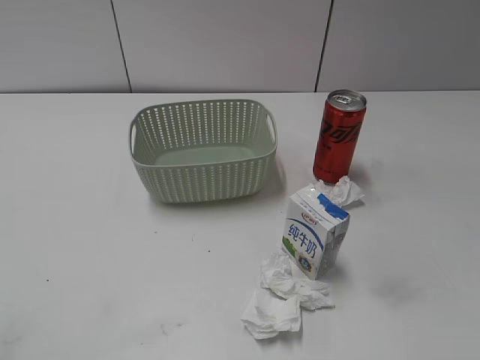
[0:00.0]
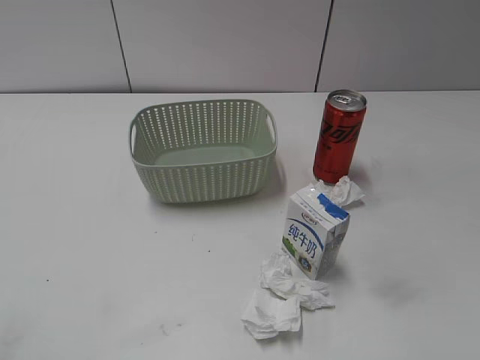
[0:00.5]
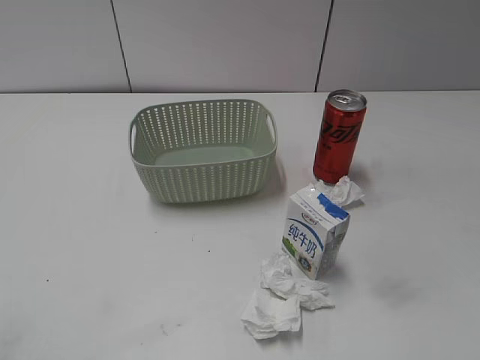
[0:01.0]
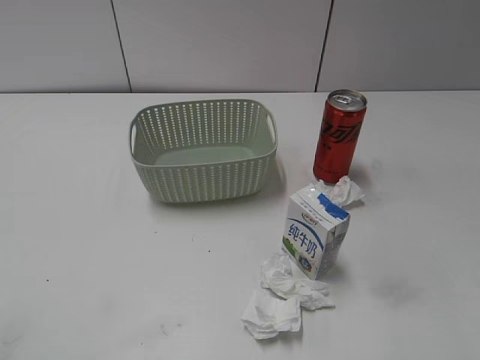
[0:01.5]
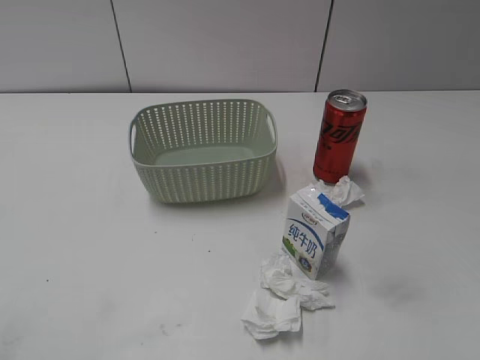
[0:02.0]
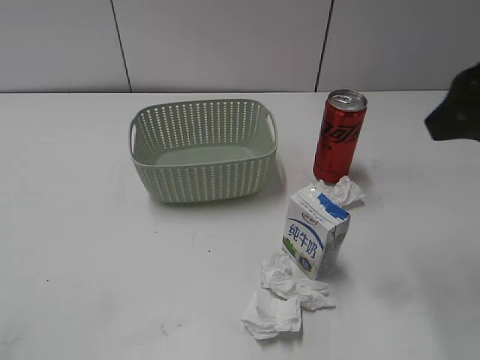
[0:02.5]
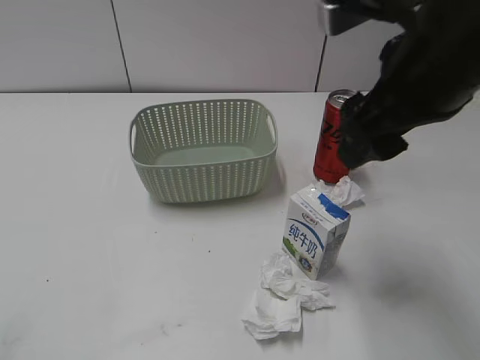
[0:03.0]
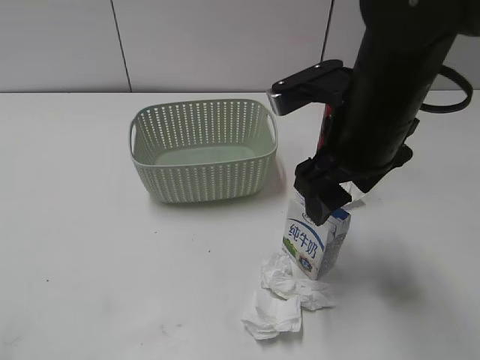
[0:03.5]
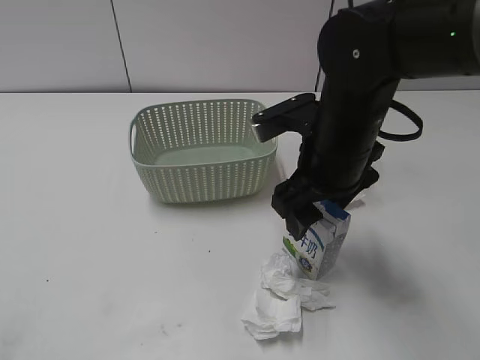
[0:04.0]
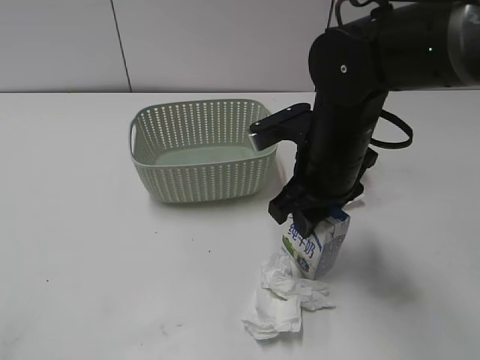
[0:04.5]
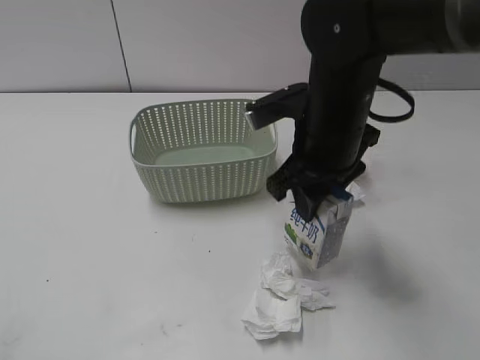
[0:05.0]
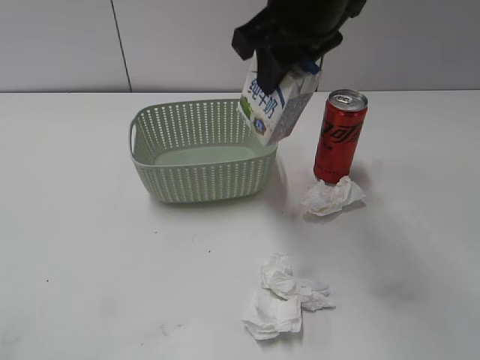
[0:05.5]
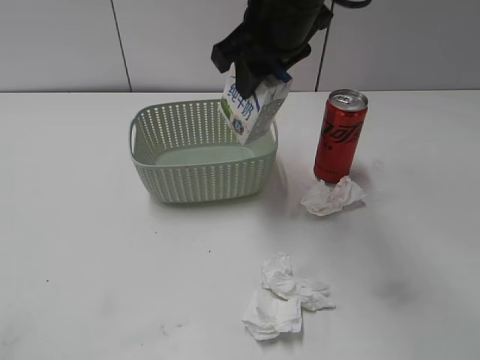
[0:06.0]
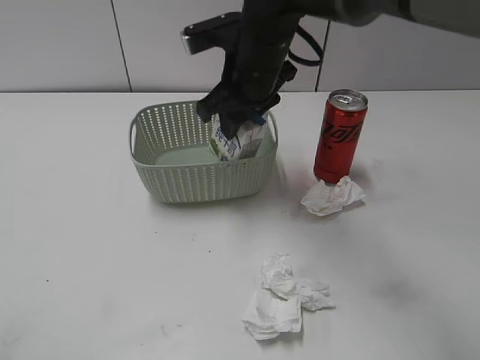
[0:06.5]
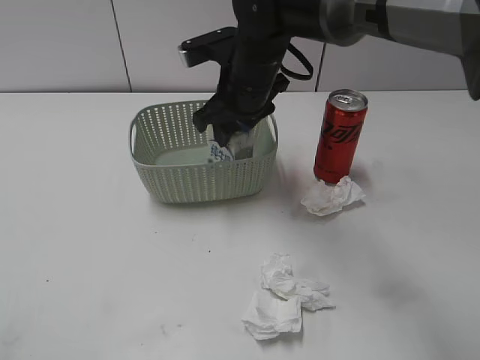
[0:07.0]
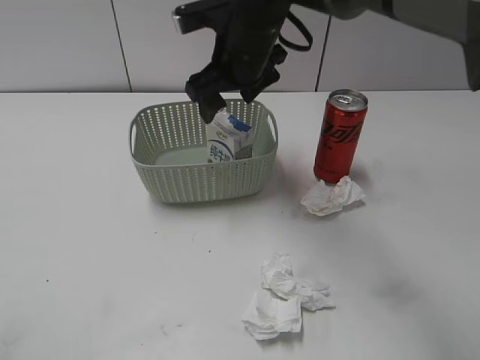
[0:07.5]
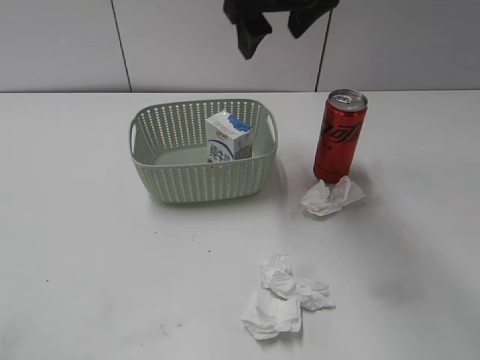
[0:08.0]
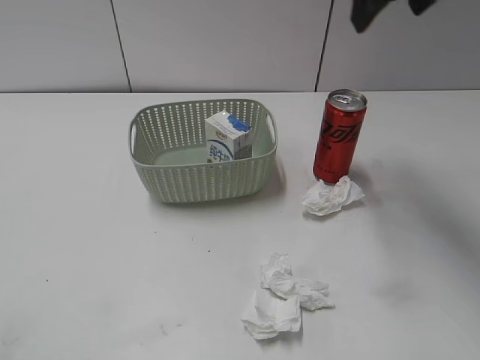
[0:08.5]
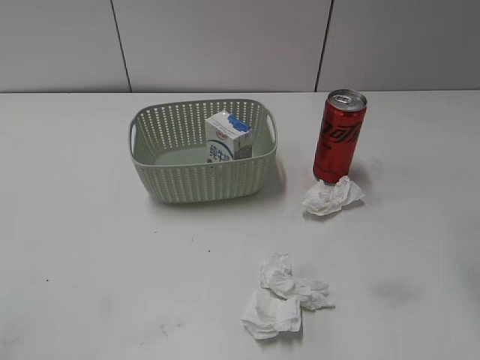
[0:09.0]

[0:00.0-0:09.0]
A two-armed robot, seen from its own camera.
Step, 0:02.5 to 0:04.5: Grasp the milk with right gripper.
Step, 0:05.0 to 0:07.5: Place the milk in the basket with right gripper.
0:02.0 to 0:04.5: The right gripper goes roughly 30 cm to the left, forward and downward, and closes.
0:04.5 to 0:07.0: The right gripper moves forward and to the left, some 15 cm, and goes upward and returns, some 15 cm each way.
0:07.0 to 0:09.0: The right gripper goes approximately 30 cm to the right, upward and backward, and opens up.

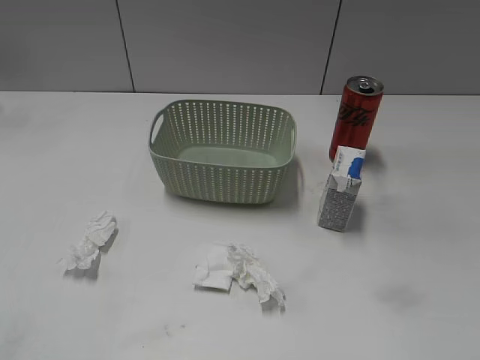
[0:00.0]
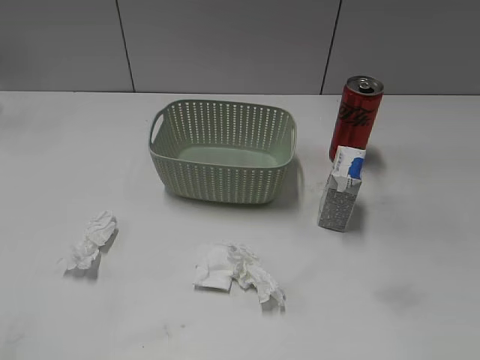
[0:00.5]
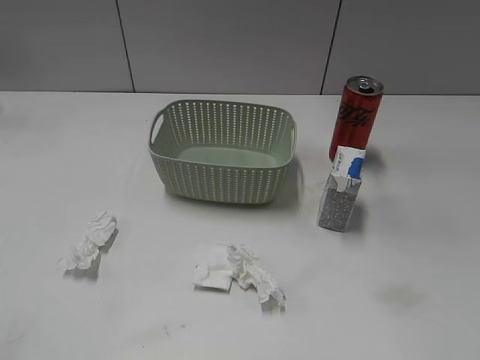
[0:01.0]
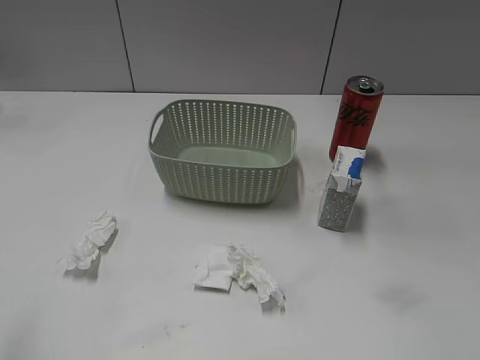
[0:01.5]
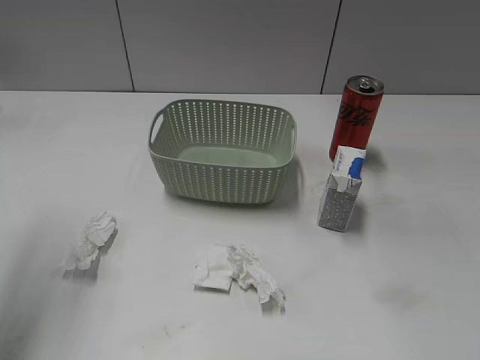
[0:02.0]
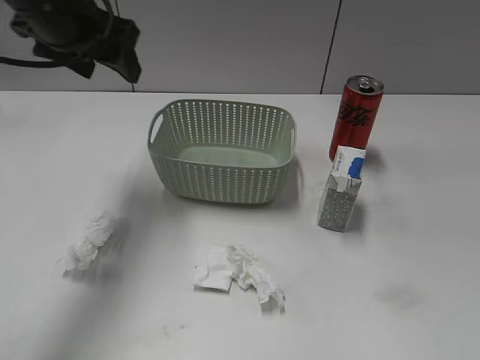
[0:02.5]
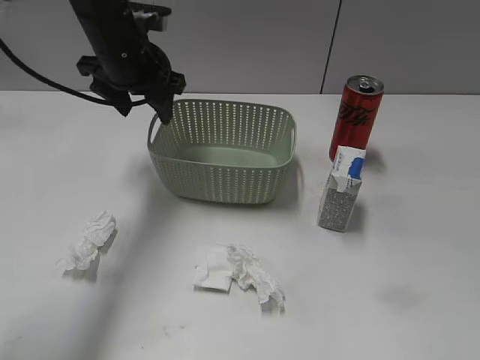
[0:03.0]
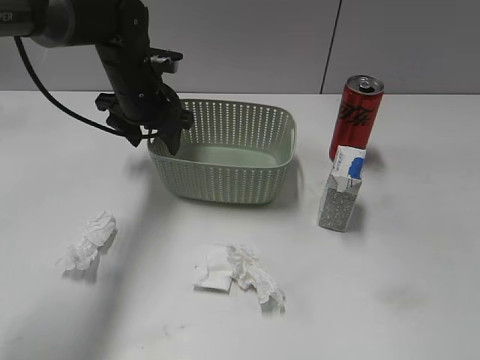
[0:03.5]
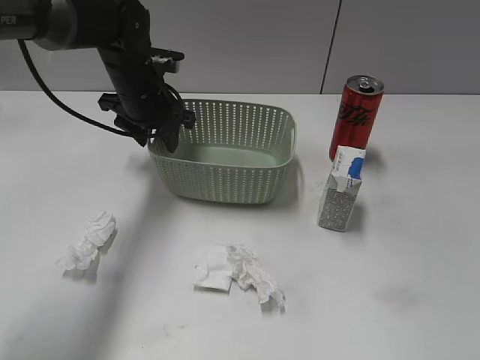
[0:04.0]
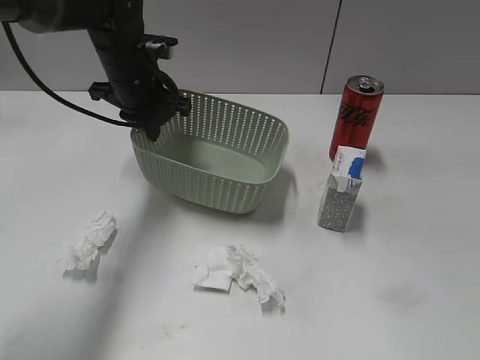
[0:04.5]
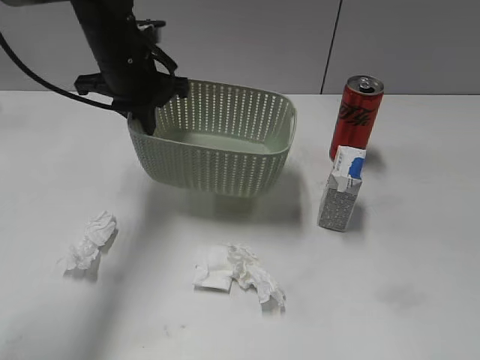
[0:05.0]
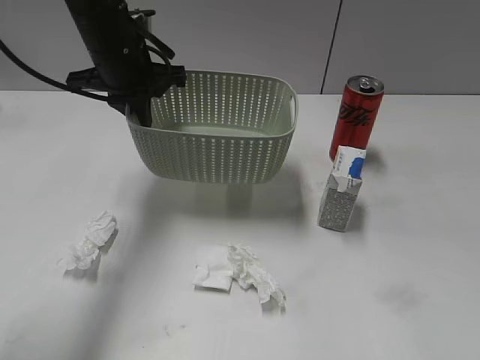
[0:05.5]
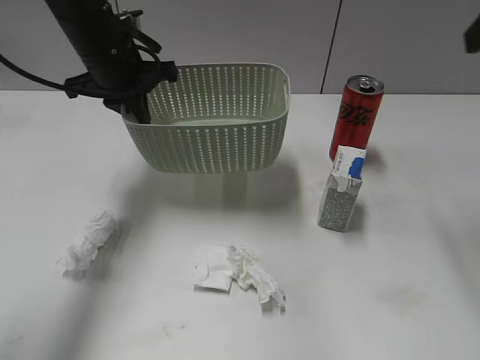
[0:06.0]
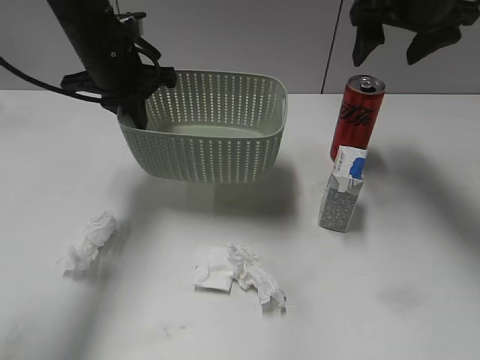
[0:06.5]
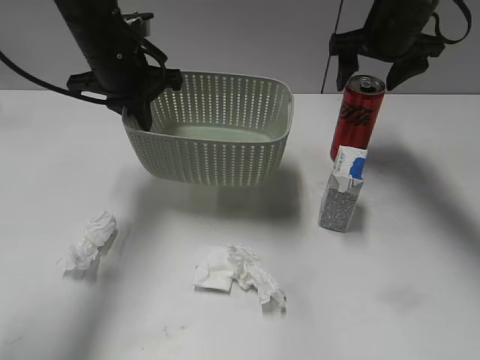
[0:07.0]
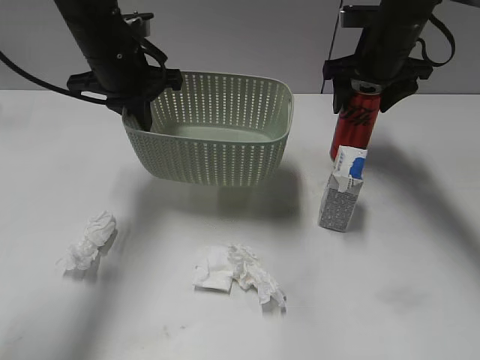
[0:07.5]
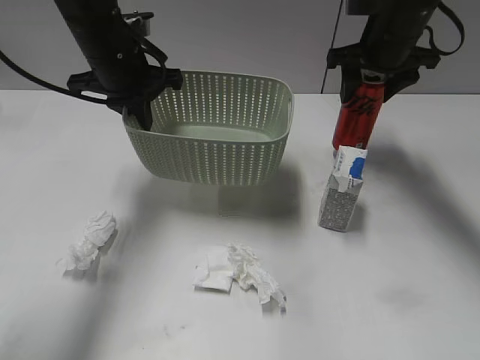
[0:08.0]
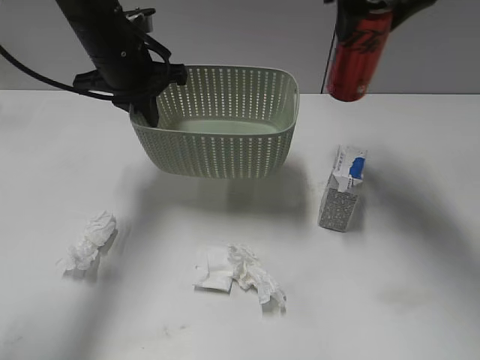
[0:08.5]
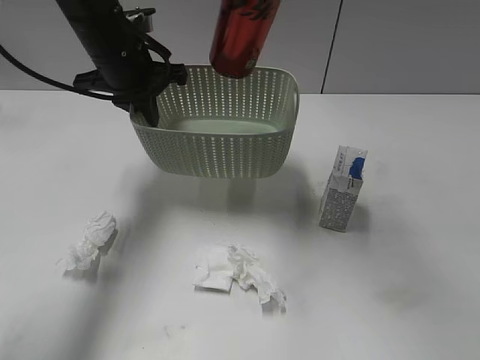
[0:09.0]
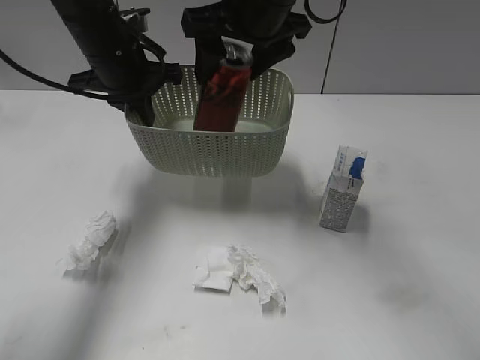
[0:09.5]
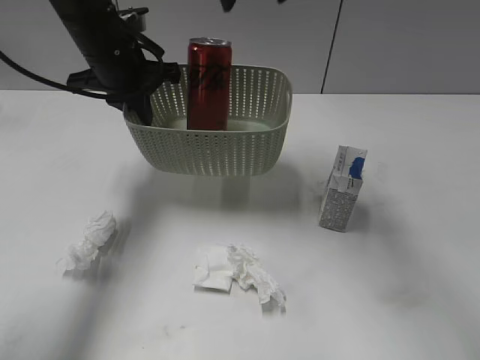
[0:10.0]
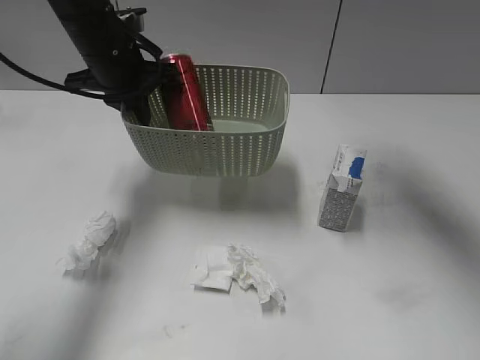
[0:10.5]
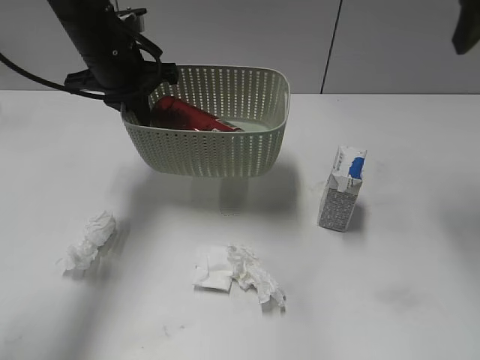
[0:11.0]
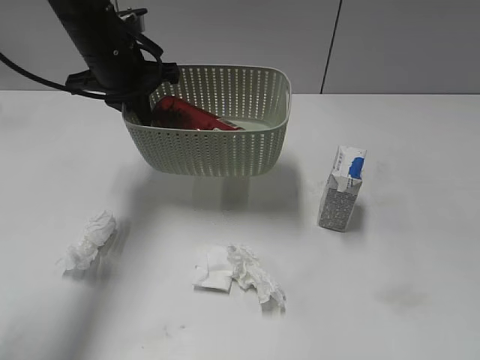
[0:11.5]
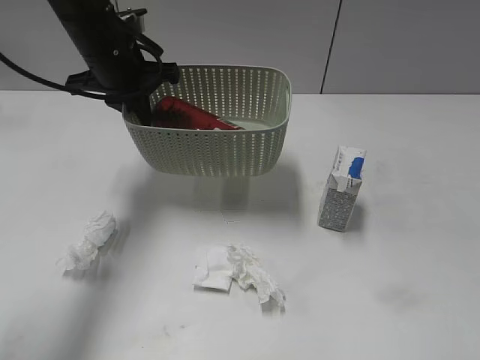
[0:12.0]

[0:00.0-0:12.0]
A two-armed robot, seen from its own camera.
Step, 0:02.5 to 0:04.0: Grasp the basket with left gripper.
Step, 0:04.5 to 0:05.5: Lift the basket with left gripper.
Step, 0:06.0 to 0:07.5: Grasp the cola can with right gripper.
Step, 0:08.0 to 0:09.5: Place the cola can in the basket with right gripper.
0:02.0 to 0:04.0: The left gripper heads forward, downward and to the right, covering about 30 cm.
0:04.0 to 0:06.0: The right gripper is displaced forward by some 30 cm, and opens its fingers. The left gripper travels upward by about 5 cm, and closes its fingers.
0:06.0 to 0:08.0: The right gripper shifts approximately 20 cm forward and downward, and closes up.
0:08.0 to 0:10.0: The right gripper is displaced to the left, upward and backward by approximately 20 cm, and opens up.
0:10.0 to 0:12.0: The right gripper heads backward and to the right, covering roughly 40 cm.

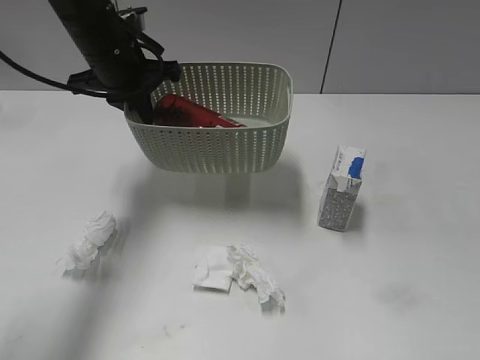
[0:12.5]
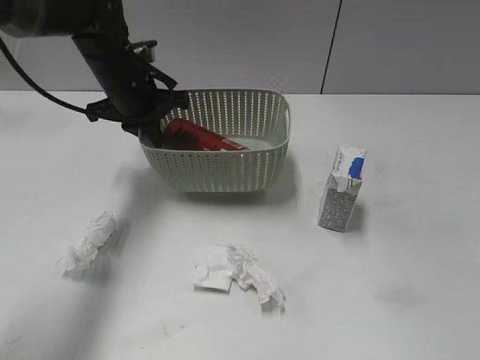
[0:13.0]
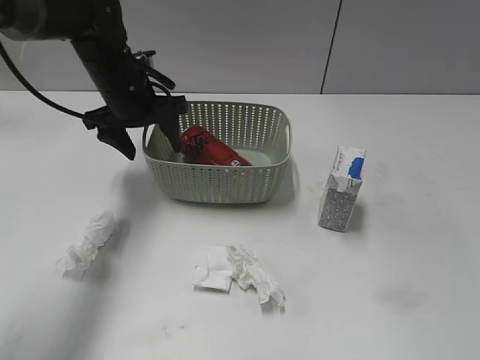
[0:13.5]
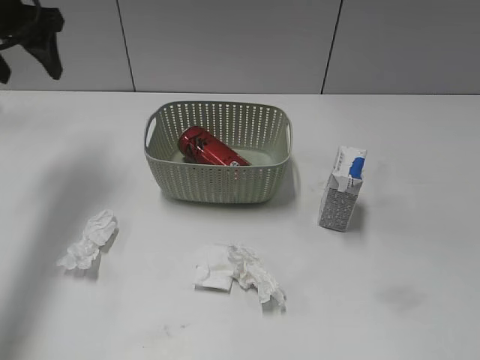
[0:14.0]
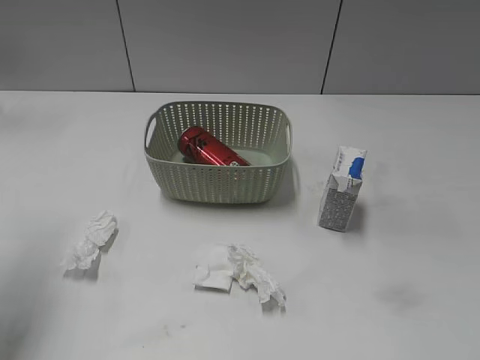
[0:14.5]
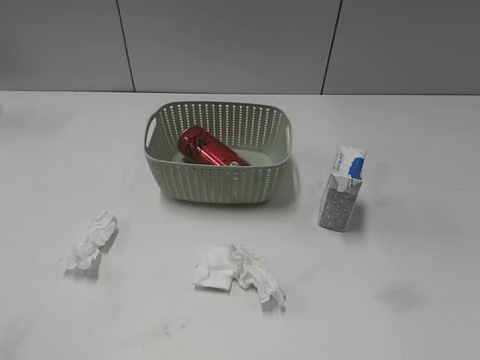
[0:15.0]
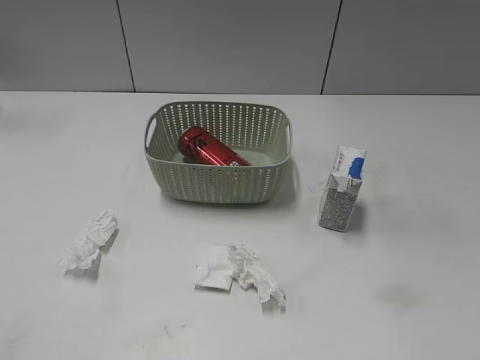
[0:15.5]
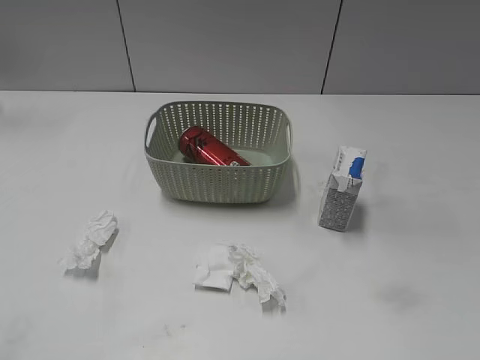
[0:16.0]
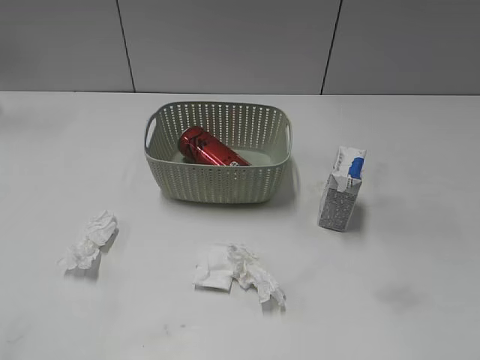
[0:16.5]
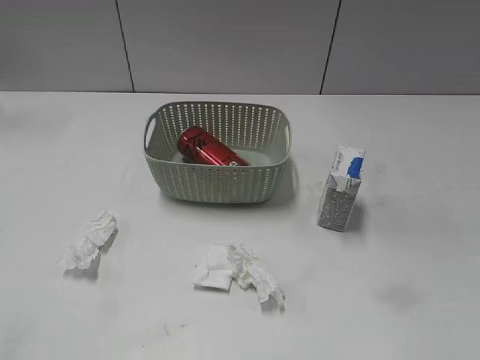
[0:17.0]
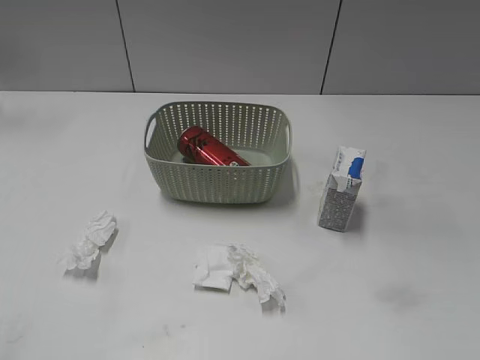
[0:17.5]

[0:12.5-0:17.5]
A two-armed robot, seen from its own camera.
0:12.5 to 0:15.0: The left gripper heads backward and to the left, covering some 40 cm, and opens.
